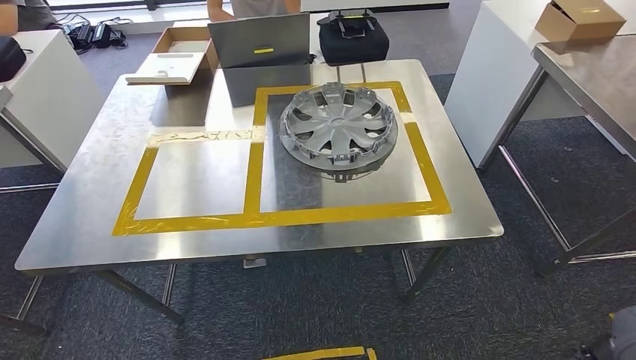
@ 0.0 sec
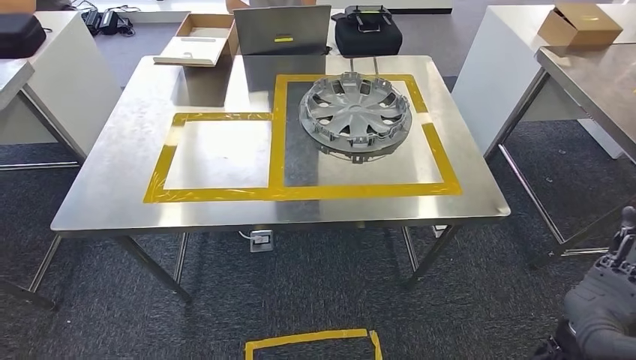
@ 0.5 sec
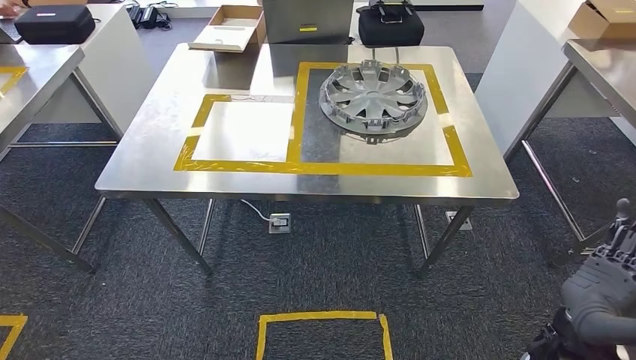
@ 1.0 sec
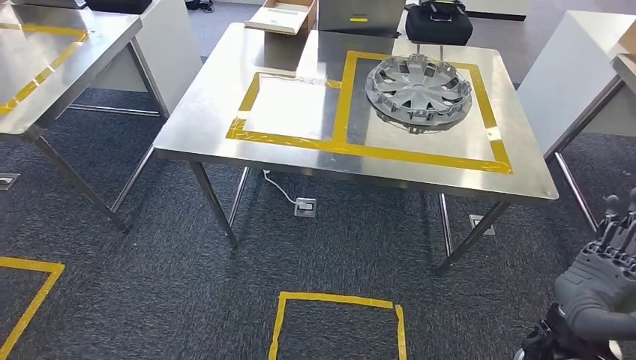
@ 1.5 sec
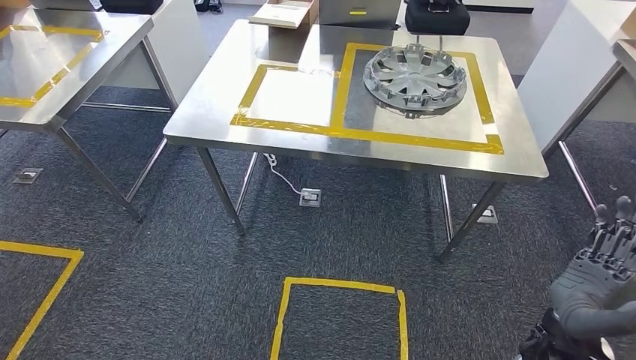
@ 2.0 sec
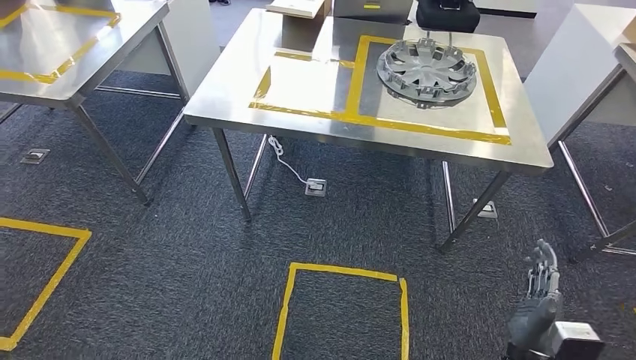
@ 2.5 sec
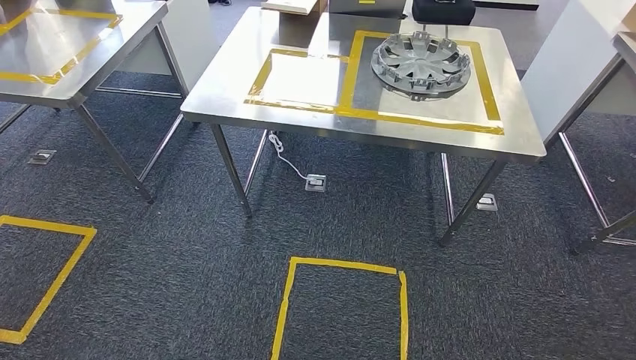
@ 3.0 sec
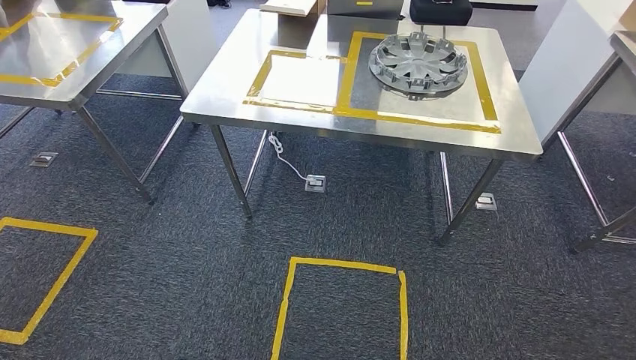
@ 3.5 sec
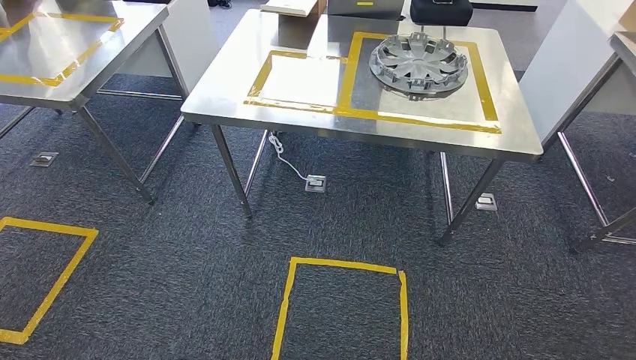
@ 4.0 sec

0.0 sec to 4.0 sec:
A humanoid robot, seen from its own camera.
Step, 0.0 sec to 4.0 sec: Move to the initial position of the workbench.
